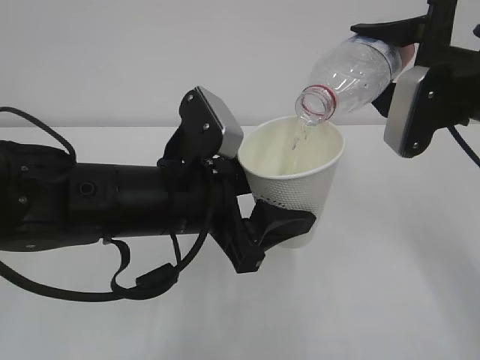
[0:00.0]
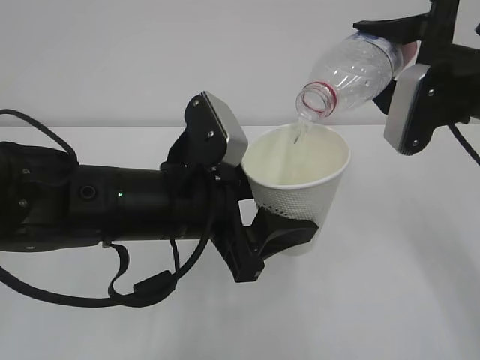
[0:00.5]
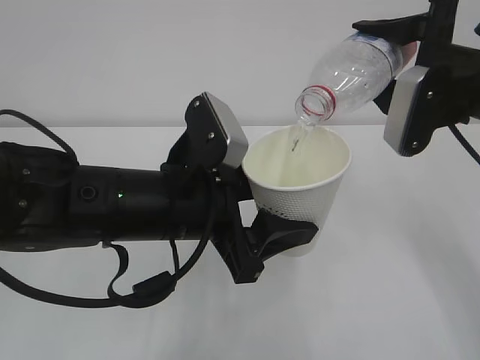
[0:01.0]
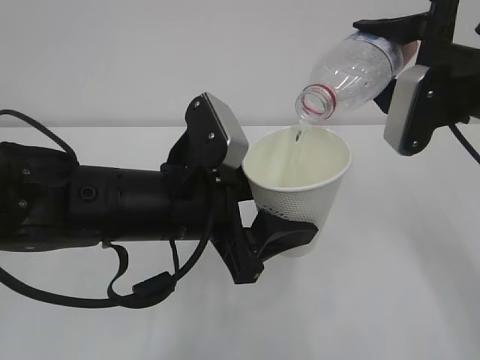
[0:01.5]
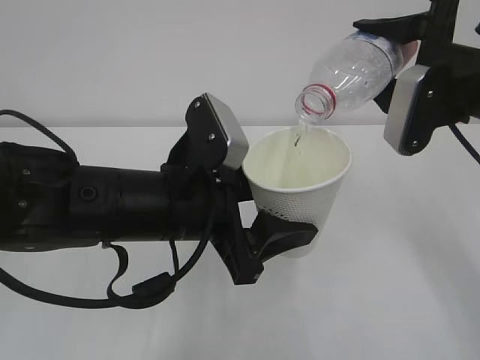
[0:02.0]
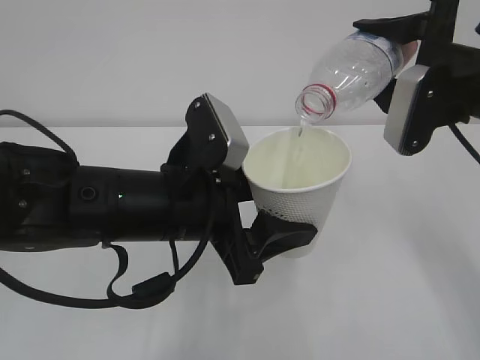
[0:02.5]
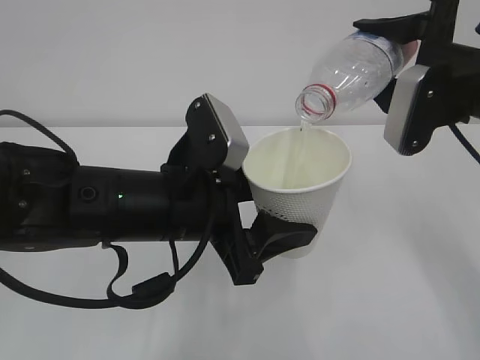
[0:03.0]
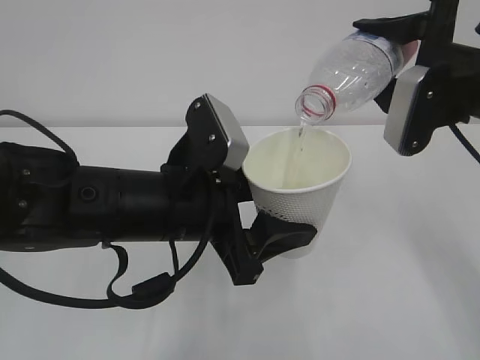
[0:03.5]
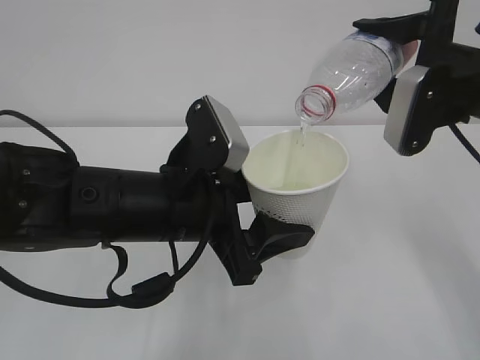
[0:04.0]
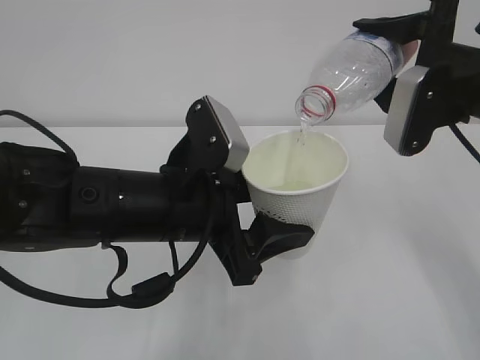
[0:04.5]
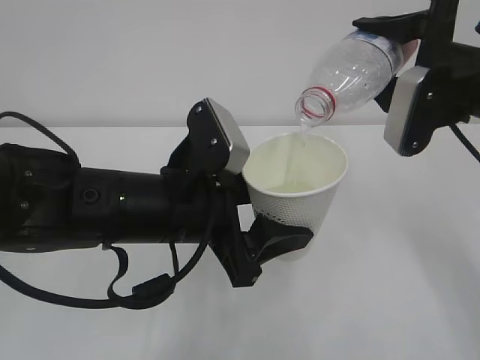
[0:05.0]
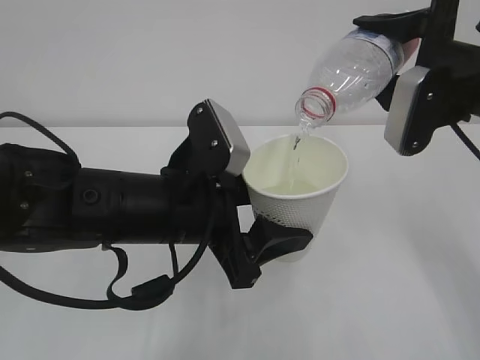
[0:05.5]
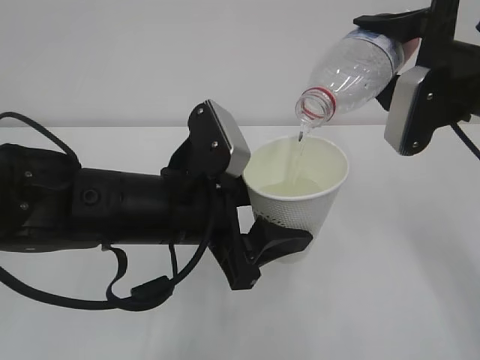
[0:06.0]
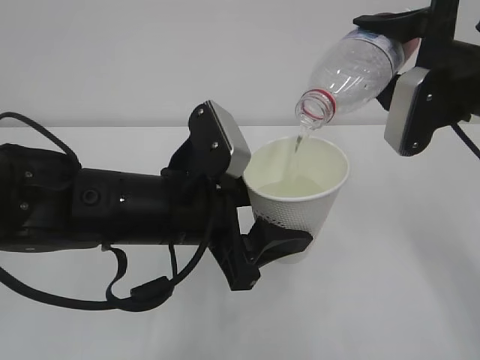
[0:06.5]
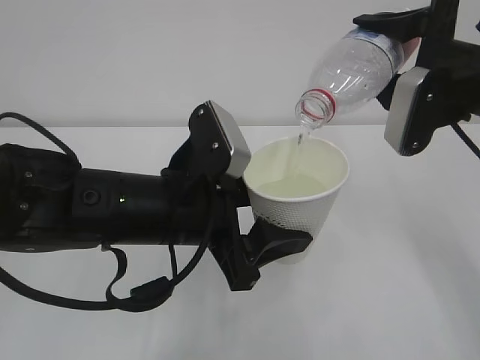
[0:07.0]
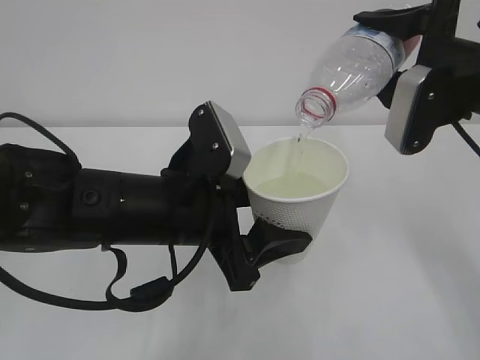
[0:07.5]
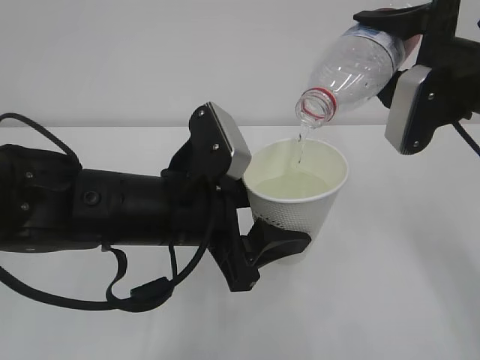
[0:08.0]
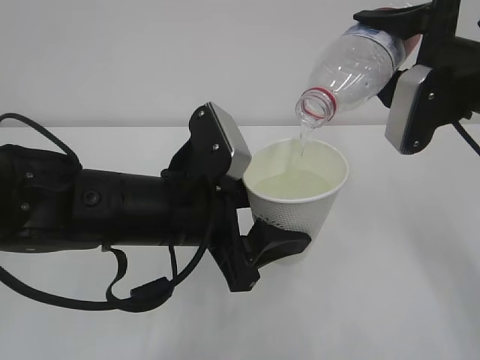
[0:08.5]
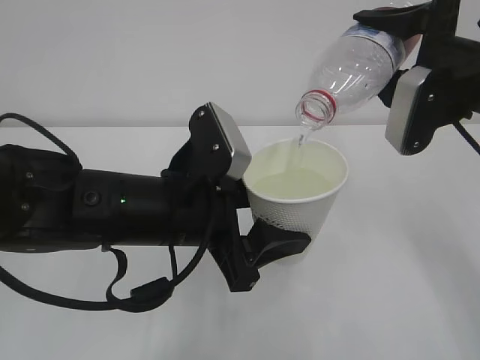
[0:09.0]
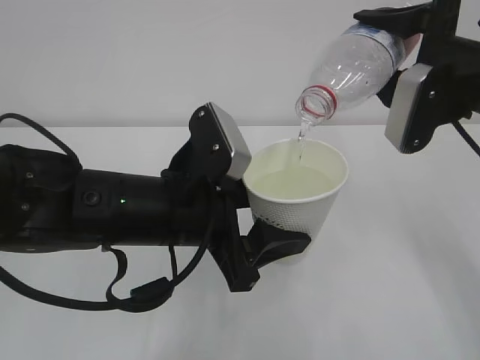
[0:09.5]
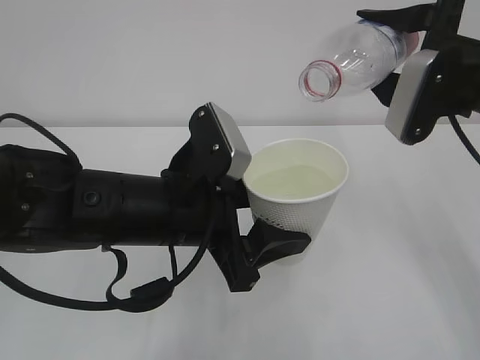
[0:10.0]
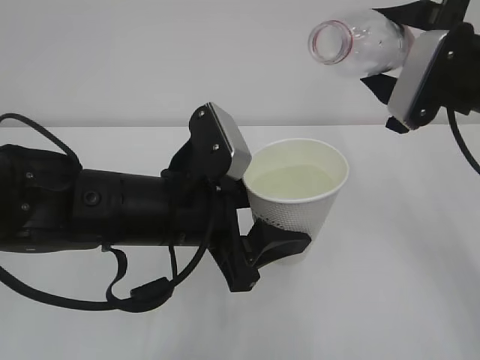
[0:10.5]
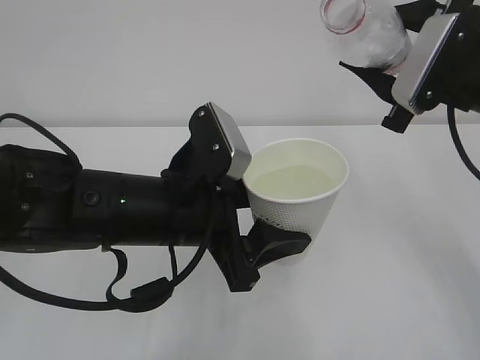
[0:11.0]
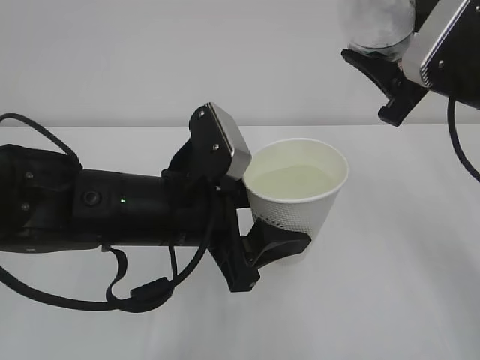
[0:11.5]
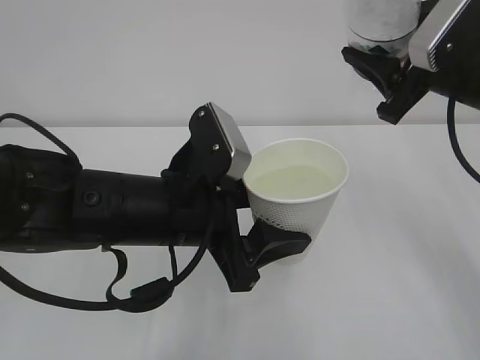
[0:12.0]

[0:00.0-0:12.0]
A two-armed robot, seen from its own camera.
0:00.0 to 0:04.0: Neither gripper changes place.
0:04.0 to 0:08.0: Neither gripper changes place.
0:08.0 to 0:10.0: There are only small adjustments of the grippers.

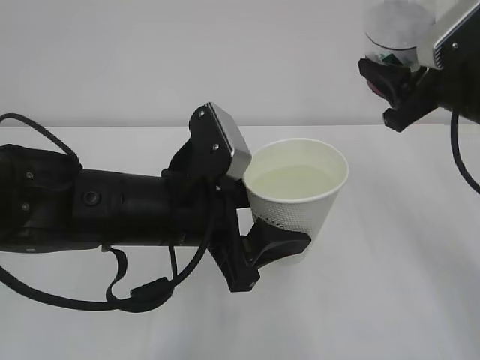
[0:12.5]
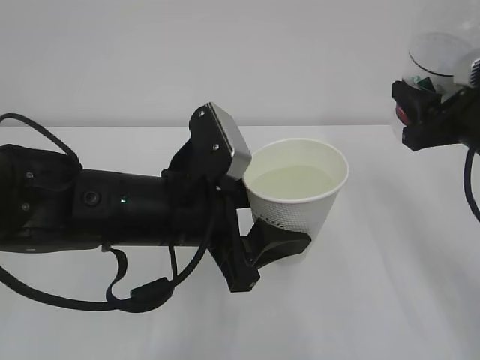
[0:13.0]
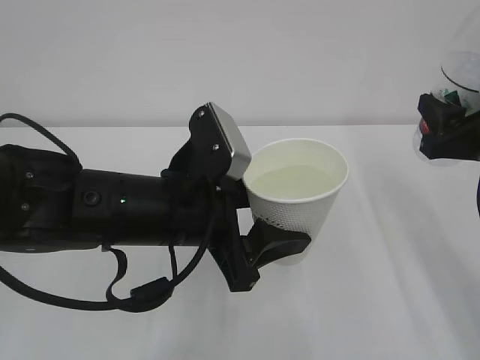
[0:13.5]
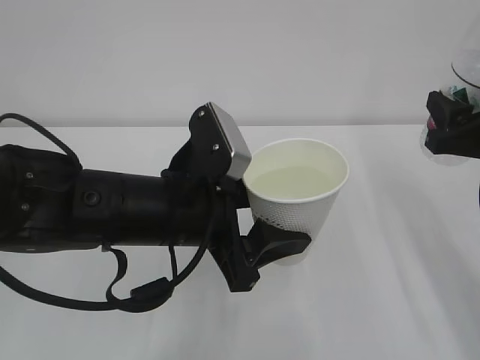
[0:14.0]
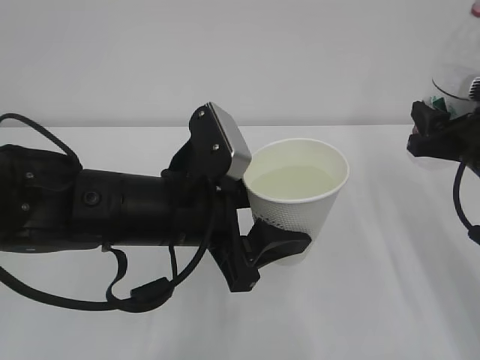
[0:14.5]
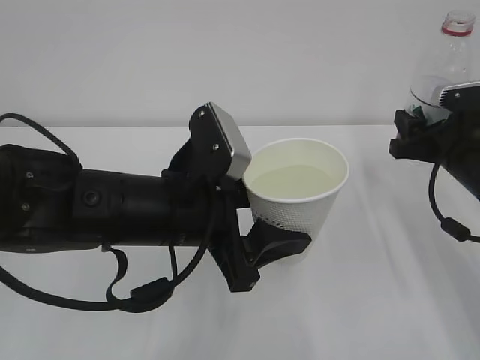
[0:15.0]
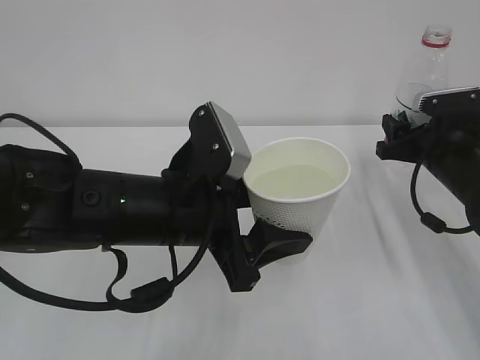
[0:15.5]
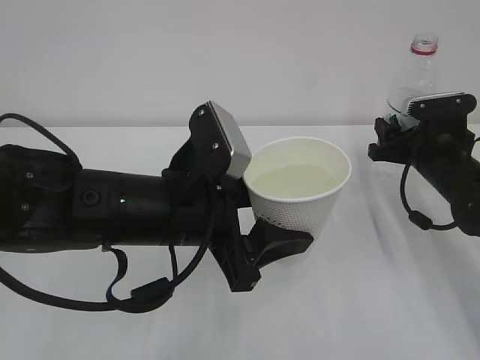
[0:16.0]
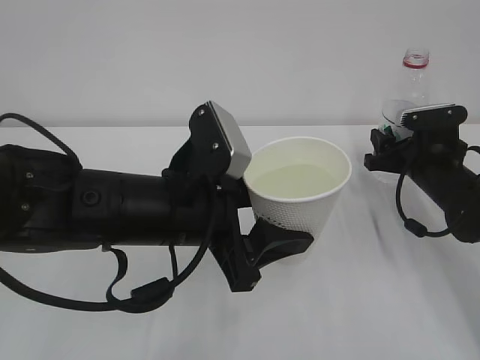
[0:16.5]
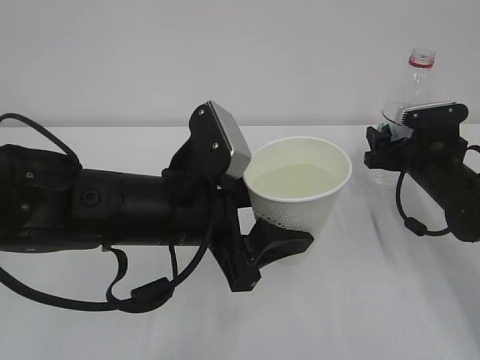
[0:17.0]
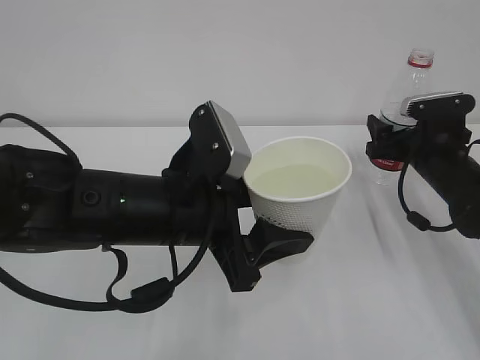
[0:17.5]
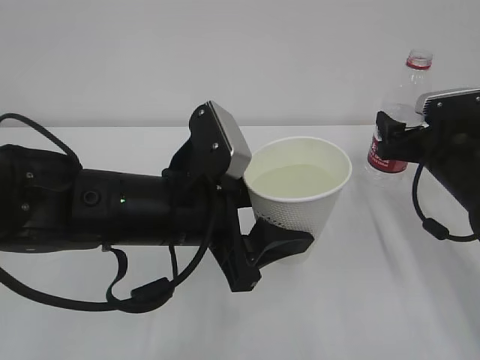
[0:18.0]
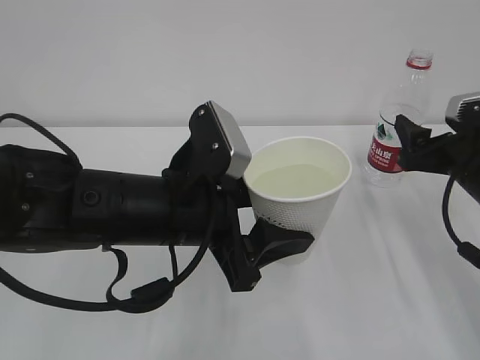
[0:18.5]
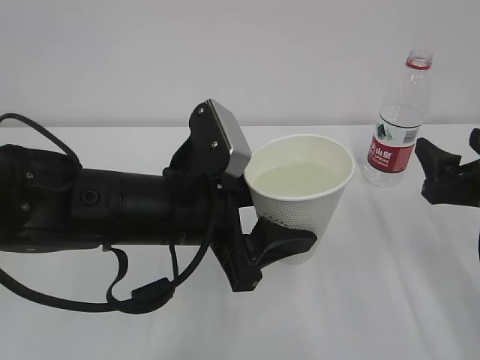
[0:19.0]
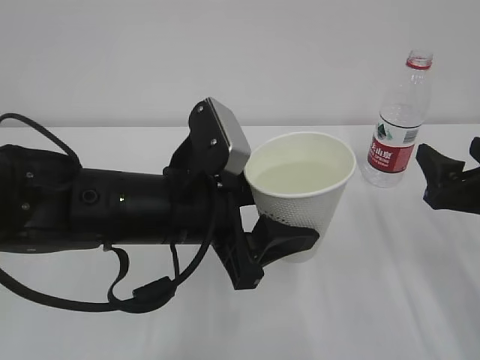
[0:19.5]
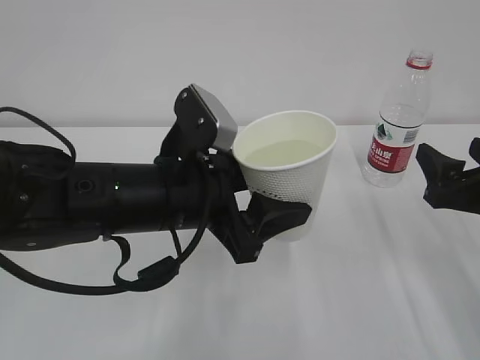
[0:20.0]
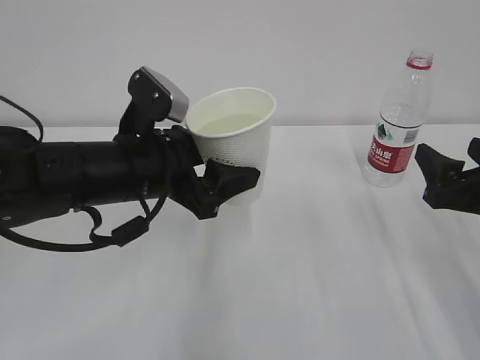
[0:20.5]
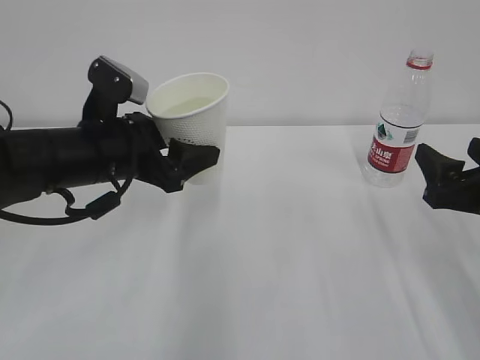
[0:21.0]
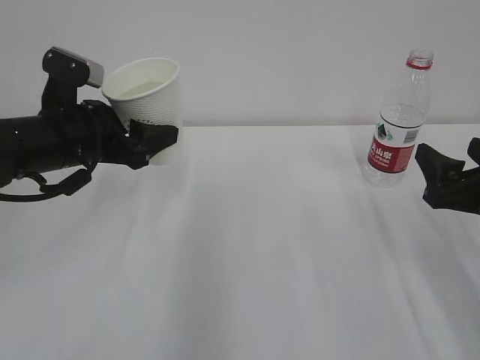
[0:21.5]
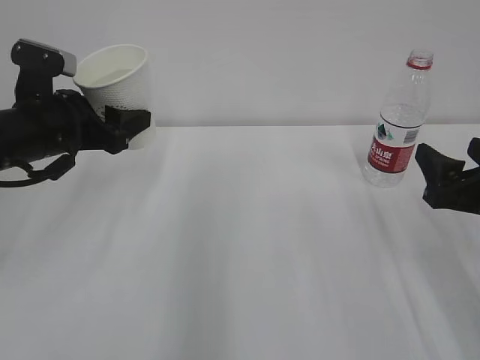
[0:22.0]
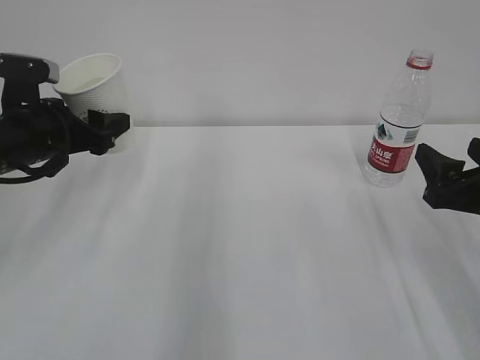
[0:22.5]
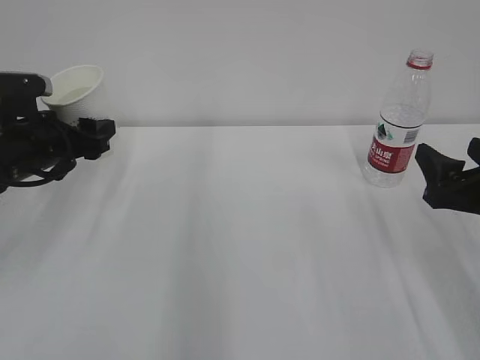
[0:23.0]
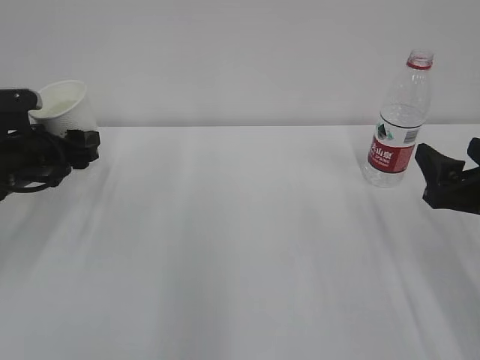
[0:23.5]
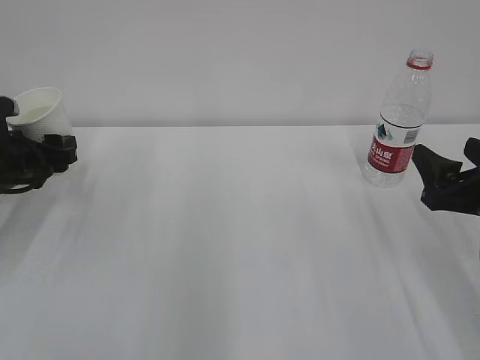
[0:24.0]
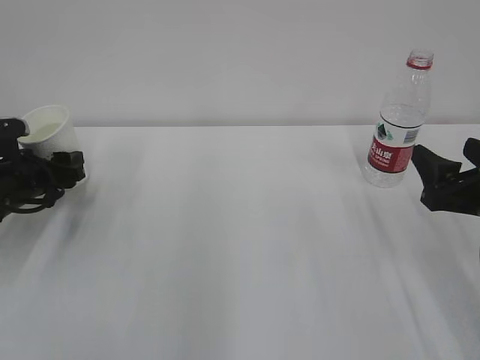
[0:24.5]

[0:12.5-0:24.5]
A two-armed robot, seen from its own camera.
0:12.5 to 0:14.5: The right gripper moves downward, roughly 5 cm.
0:14.5 to 0:16.5: The right gripper travels downward and forward by some 10 cm.
0:16.5 to 0:18.5: The right gripper shifts some 10 cm backward and upward, and opens up.
0:18.5 to 0:20.5: The left gripper moves roughly 5 cm, while the right gripper moves backward, roughly 5 cm.
0:20.5 to 0:22.5: The left gripper travels to the left and forward by roughly 15 cm.
0:22.5 to 0:24.5: The left gripper shifts approximately 10 cm downward and to the left.

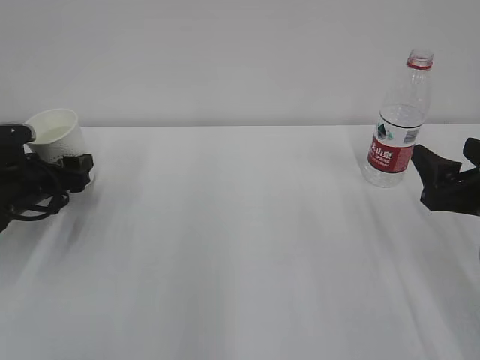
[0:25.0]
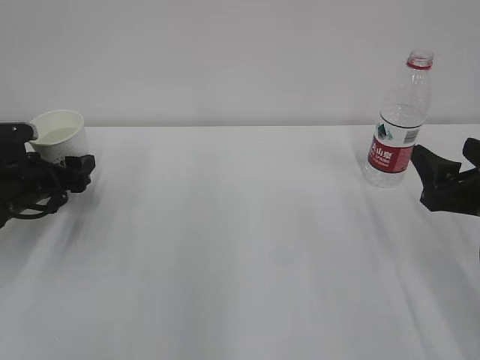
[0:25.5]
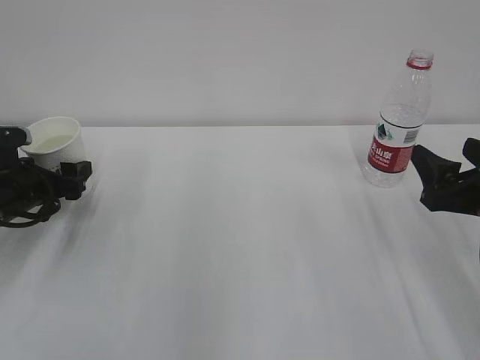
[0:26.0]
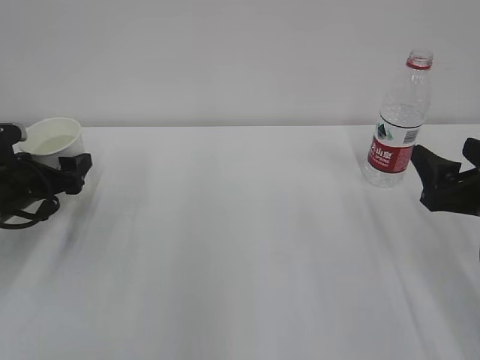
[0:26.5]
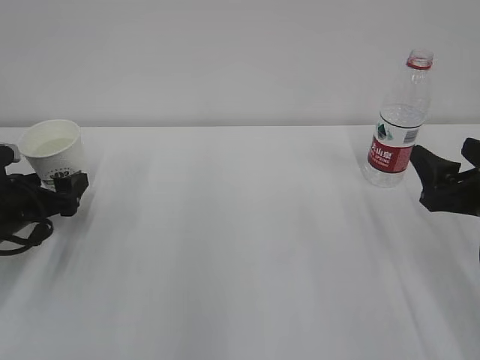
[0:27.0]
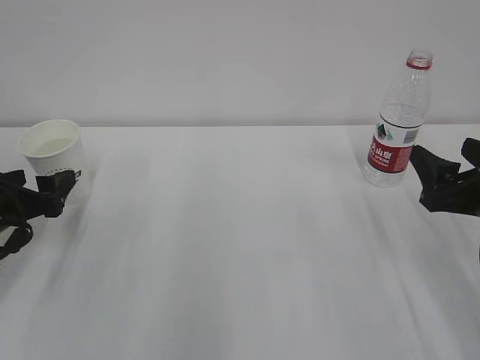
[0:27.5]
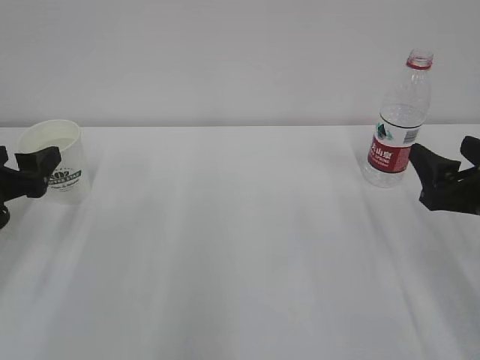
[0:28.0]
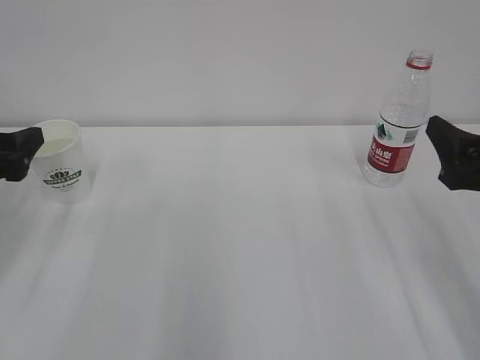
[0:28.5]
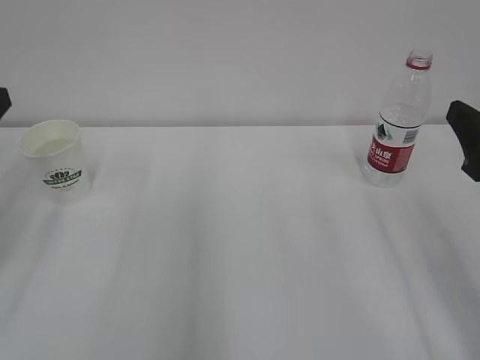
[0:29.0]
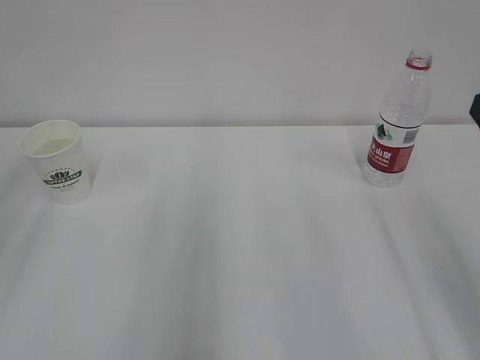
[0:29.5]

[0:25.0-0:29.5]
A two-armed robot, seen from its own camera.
0:25.0 to 0:27.0: The grippers move only a little.
0:27.0 to 0:29.5: The left gripper travels upward and backward by about 25 cm; the right gripper shifts roughly 10 cm upward and backward.
